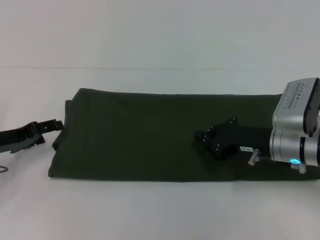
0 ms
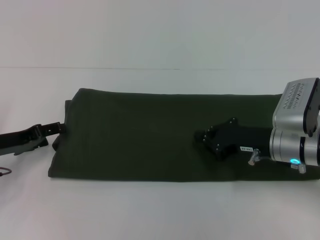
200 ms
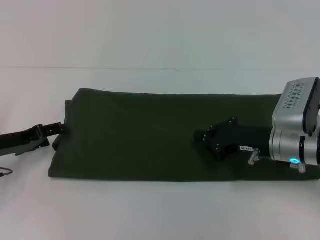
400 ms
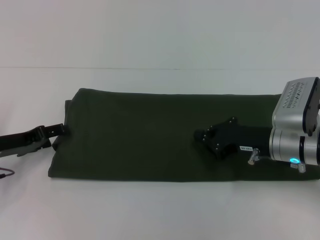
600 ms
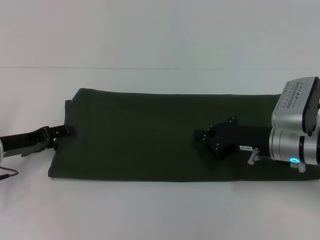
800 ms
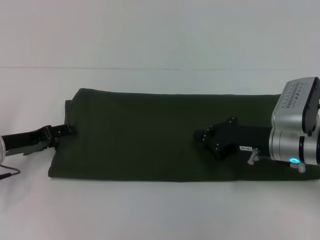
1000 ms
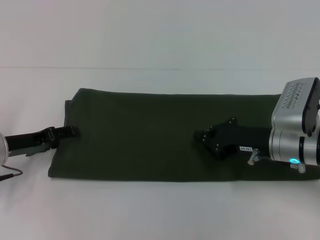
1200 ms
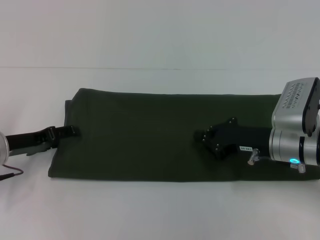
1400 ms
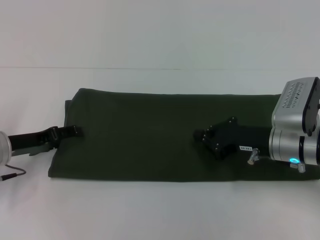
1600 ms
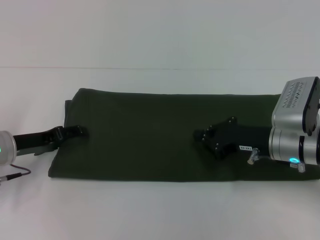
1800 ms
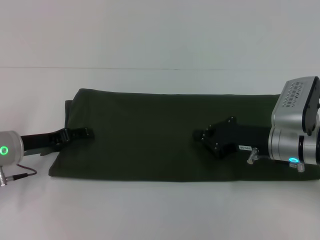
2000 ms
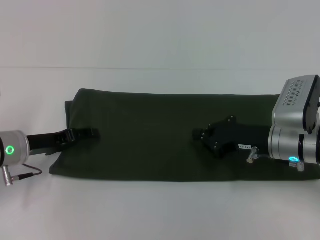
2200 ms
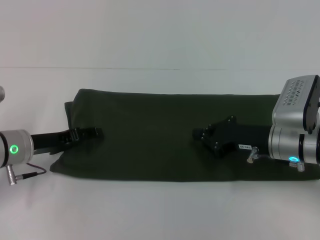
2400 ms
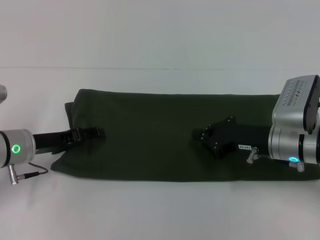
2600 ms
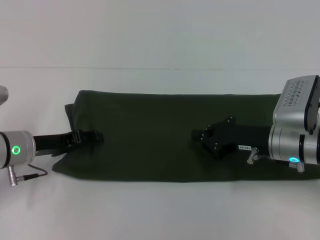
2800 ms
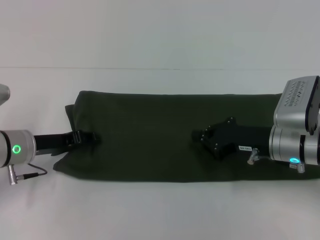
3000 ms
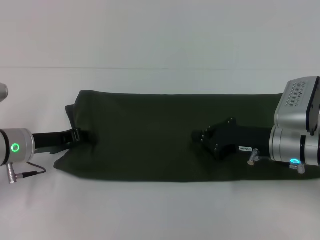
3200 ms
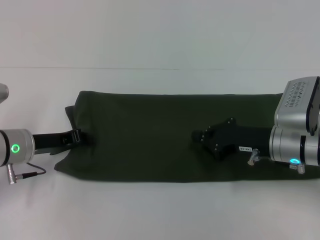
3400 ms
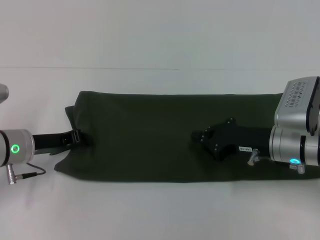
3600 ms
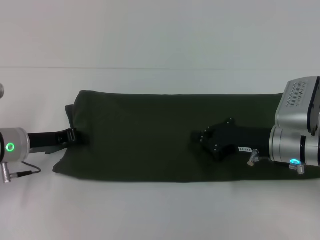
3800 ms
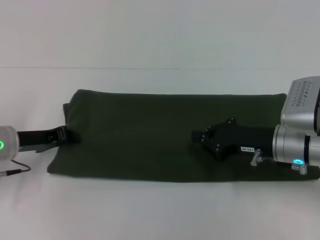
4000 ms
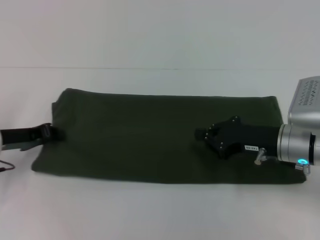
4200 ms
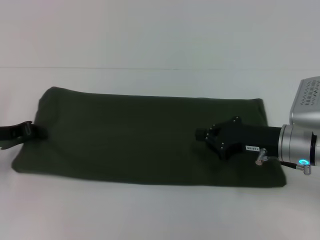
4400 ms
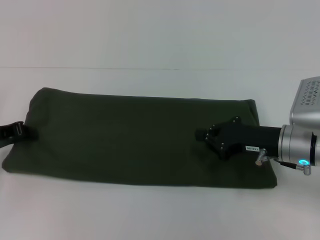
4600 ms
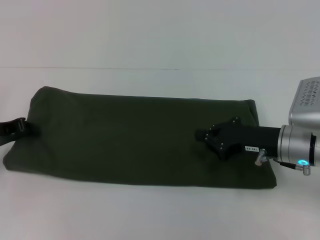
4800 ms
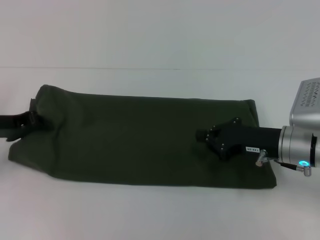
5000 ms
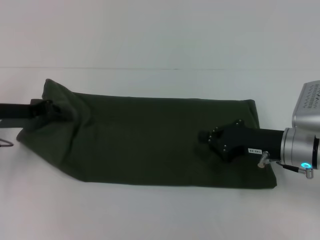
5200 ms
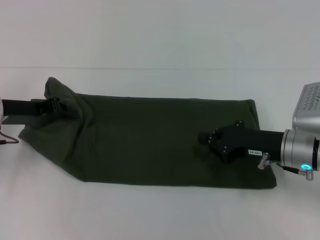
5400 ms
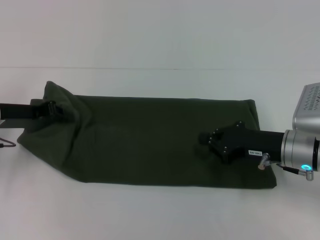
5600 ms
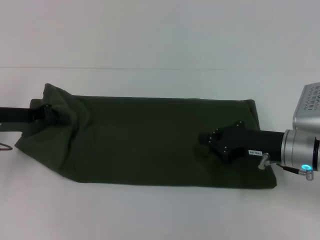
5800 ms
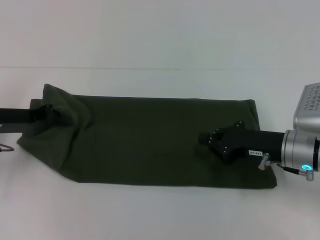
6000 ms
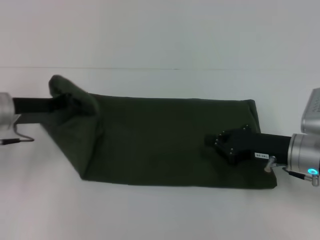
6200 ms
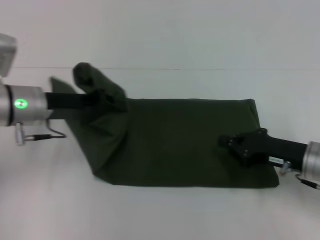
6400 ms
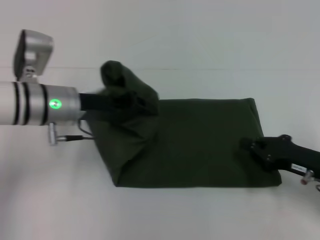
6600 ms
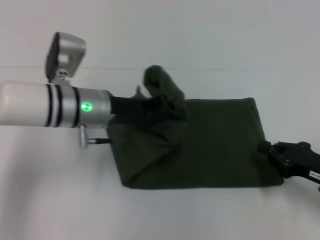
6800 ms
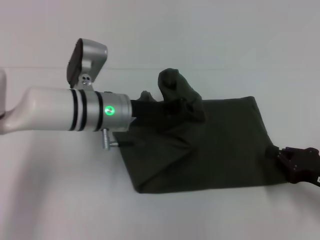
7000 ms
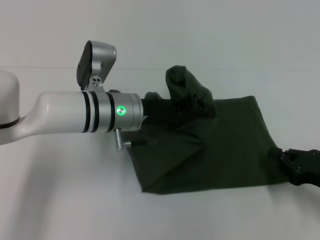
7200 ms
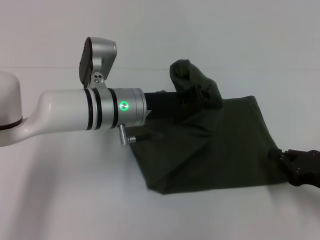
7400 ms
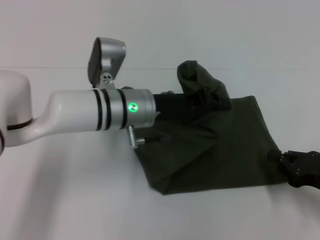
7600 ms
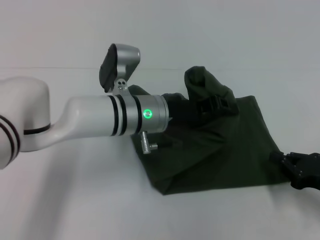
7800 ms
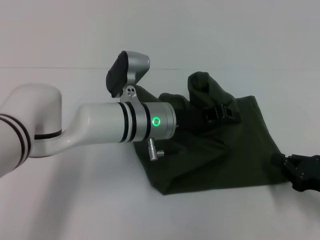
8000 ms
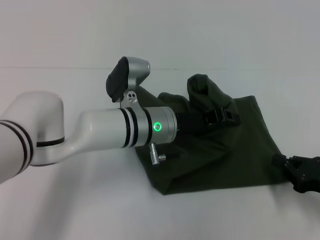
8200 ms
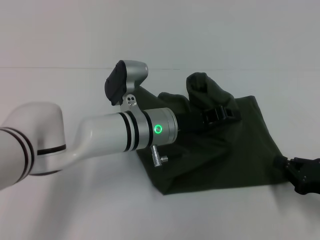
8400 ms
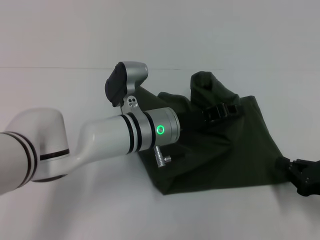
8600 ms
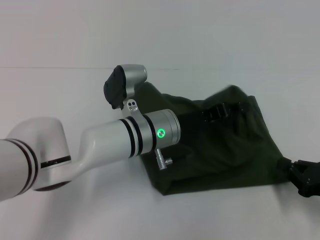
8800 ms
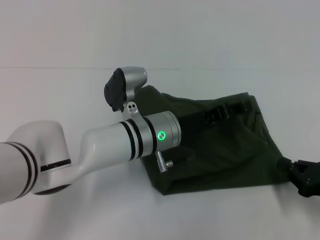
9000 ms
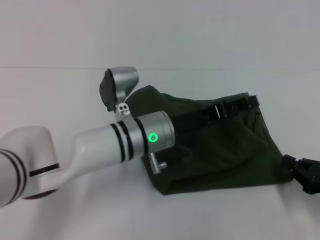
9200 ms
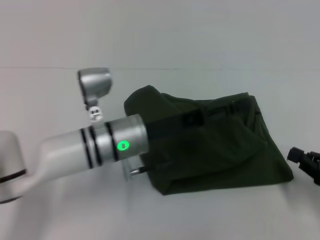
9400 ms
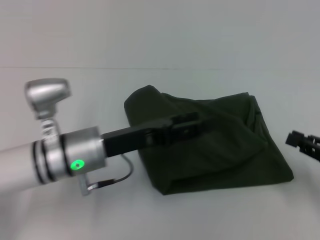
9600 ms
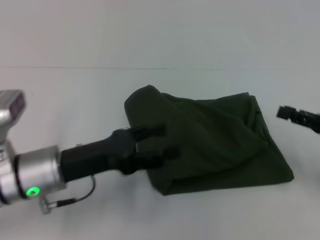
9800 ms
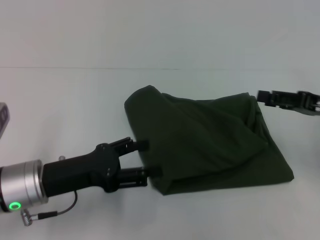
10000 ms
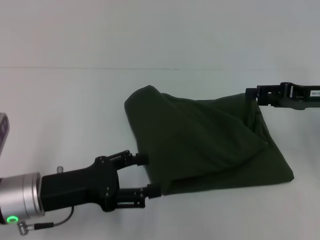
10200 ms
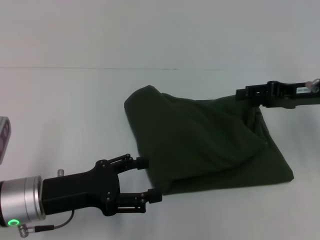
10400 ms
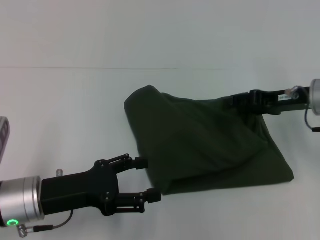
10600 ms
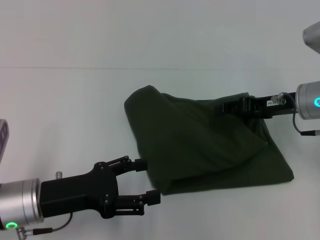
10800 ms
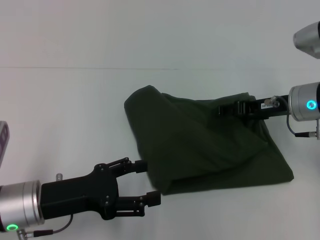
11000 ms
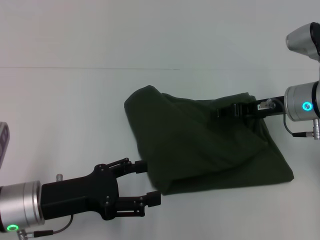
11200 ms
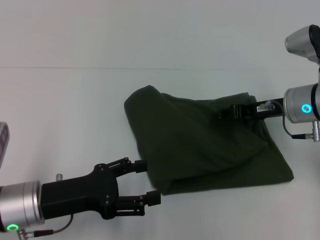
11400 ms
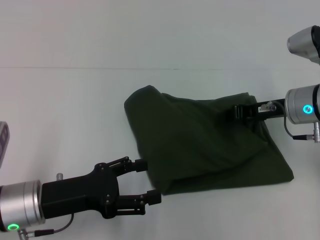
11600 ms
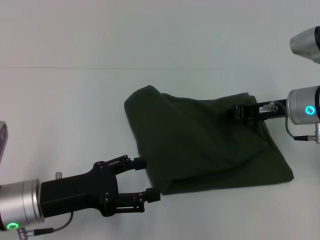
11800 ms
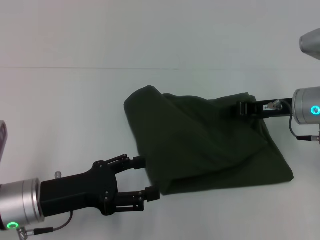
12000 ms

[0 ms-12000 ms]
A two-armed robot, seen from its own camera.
0 ms to 1600 ms: The grippers move only a little.
1600 ms to 3000 ms: The grippers move only a little.
3000 ms to 4400 ms: The left gripper moves to the left, approximately 5 cm, and closes up.
6000 ms to 7600 ms: The right gripper is displaced to the right and backward by some 10 cm. The left gripper moves to the right, some 20 cm.
7600 ms to 9000 ms: The left gripper ends up roughly 5 cm from where it was, and opens.
9000 ms to 10400 ms: The left gripper moves to the left and backward, some 20 cm, and opens. Meanwhile the right gripper travels forward and upward by roughly 20 cm, and opens up.
10400 ms to 12000 ms: The right gripper shifts by roughly 5 cm, and closes its fingers.

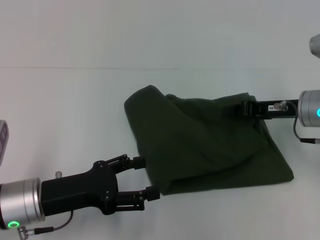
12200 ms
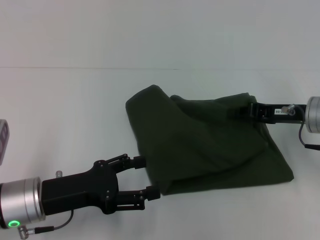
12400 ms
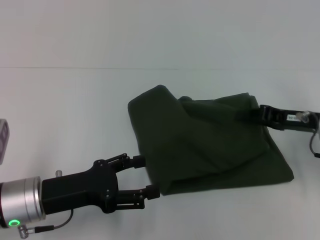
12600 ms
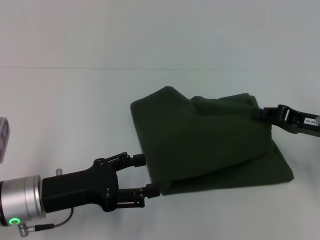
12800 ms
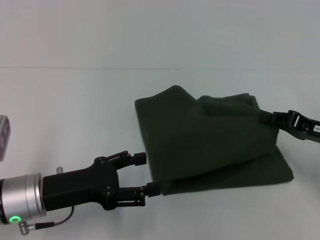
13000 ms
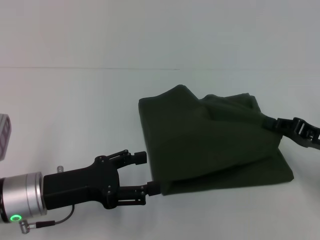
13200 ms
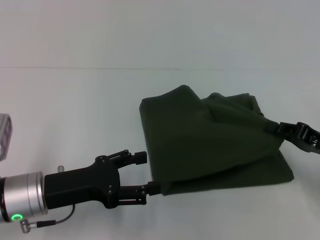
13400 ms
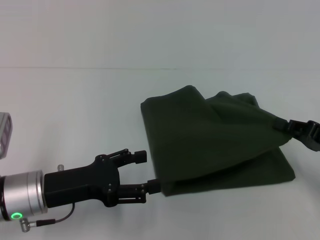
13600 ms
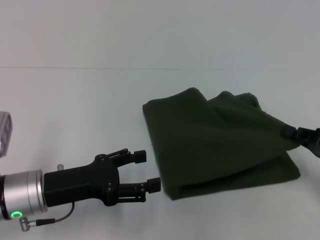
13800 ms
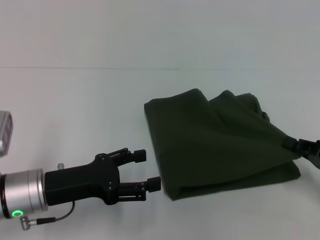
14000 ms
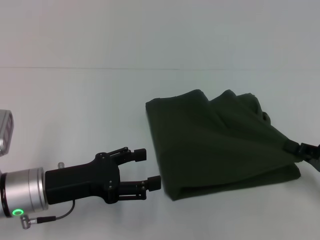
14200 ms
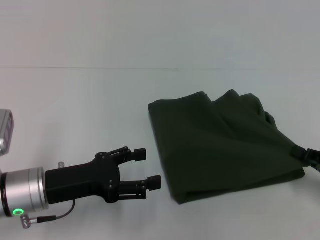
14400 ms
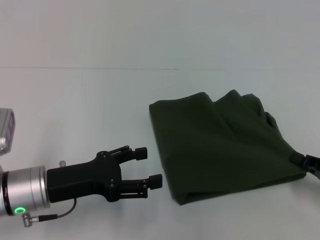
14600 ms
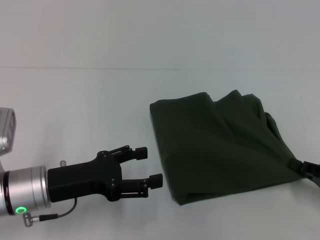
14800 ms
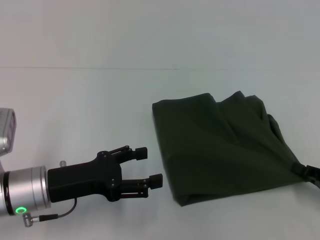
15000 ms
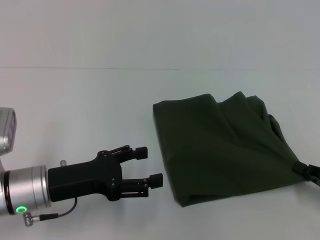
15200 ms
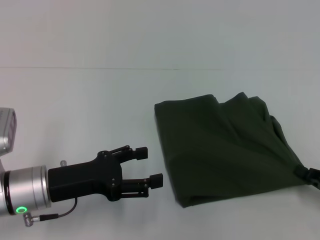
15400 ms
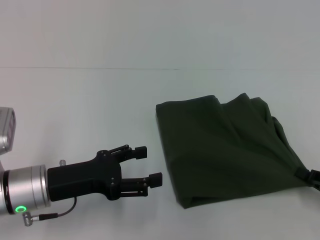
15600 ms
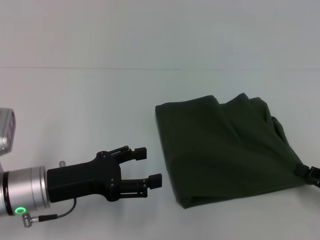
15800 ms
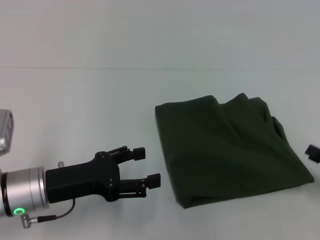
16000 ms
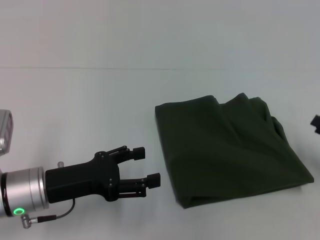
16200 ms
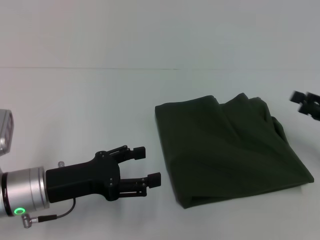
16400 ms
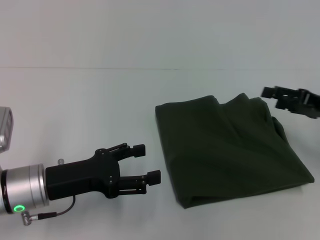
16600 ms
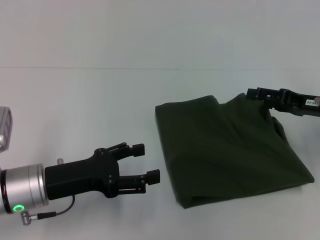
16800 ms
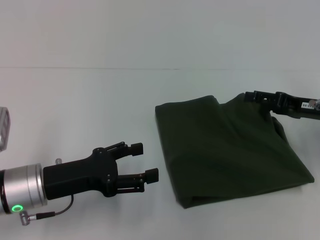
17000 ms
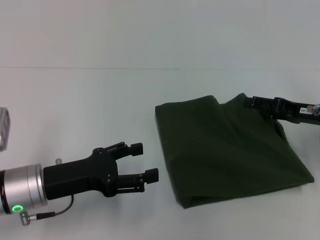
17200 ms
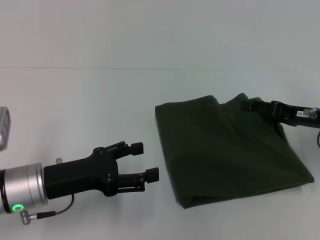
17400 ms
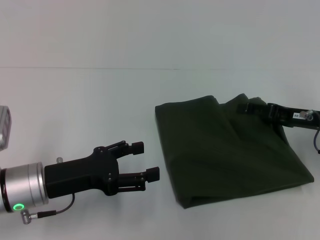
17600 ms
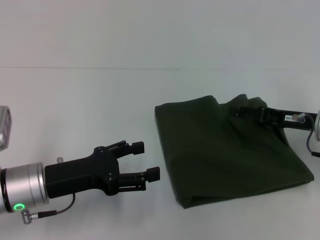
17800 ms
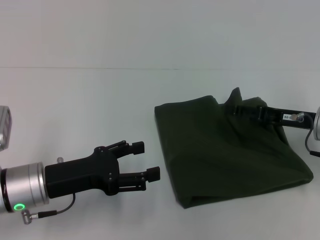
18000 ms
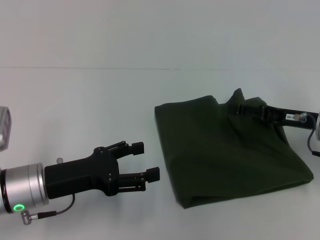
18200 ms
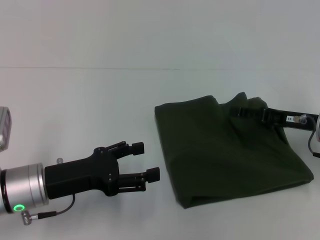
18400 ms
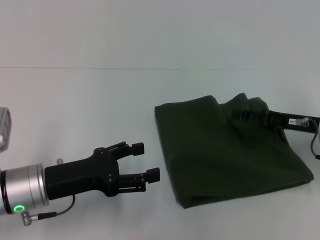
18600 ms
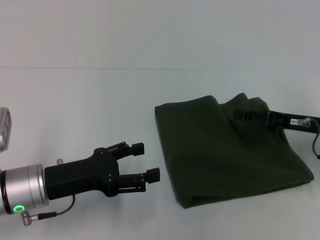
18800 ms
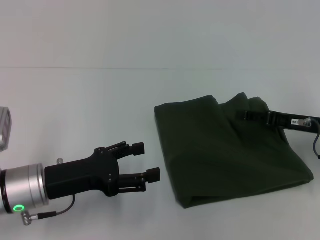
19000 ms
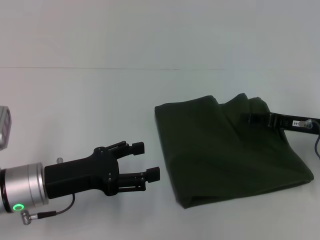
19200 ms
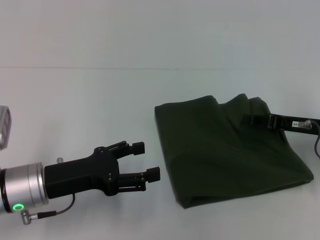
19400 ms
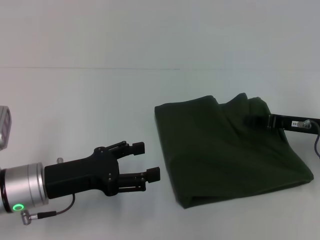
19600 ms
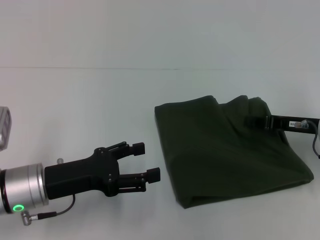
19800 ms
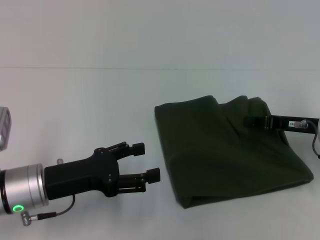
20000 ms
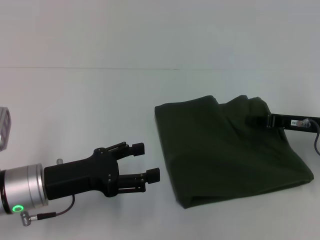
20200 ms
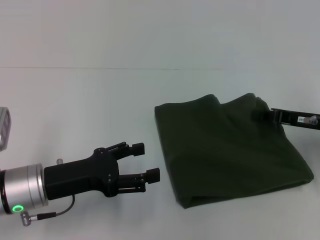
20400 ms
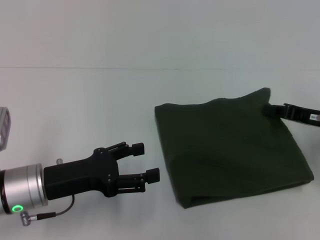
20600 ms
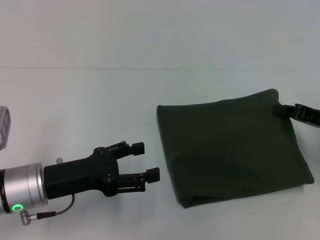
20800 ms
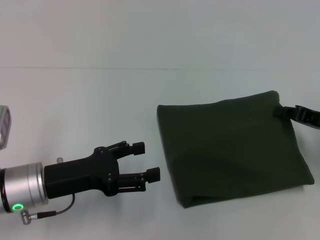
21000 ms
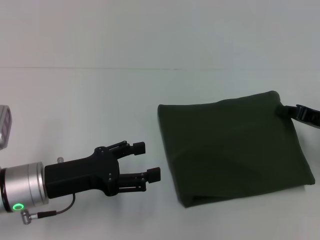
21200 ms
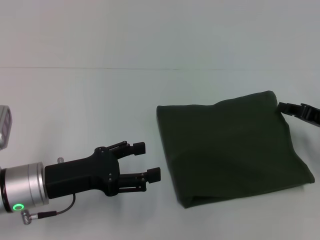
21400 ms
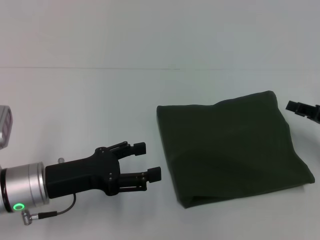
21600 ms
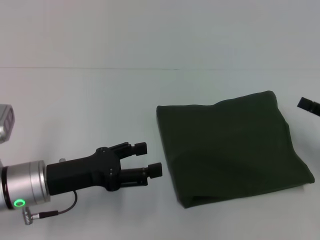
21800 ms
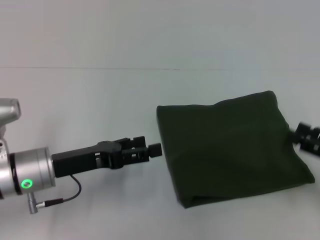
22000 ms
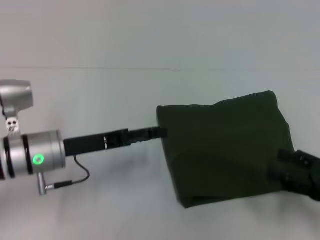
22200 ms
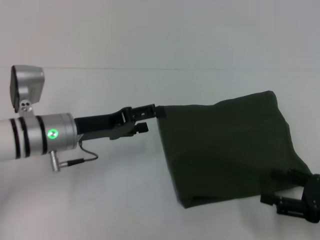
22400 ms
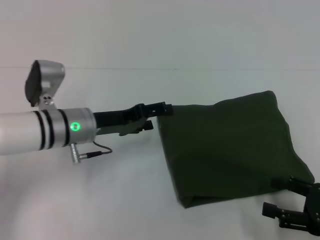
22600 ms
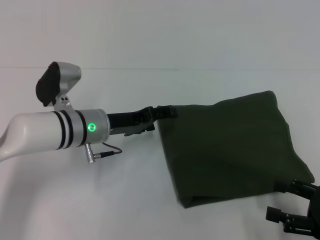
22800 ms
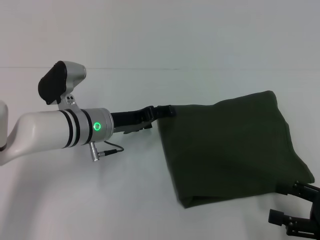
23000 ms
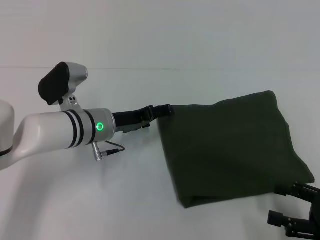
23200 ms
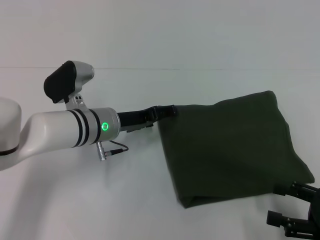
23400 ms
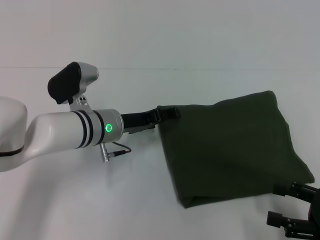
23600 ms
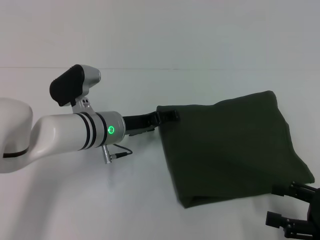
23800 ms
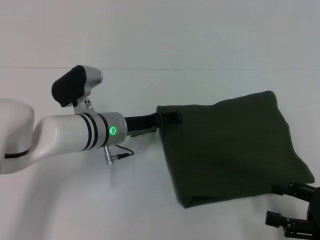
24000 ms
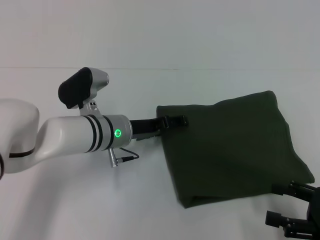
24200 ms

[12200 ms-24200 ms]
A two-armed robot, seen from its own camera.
12200 ms to 13800 ms: The right gripper moves backward and to the right, roughly 15 cm.
13800 ms to 15200 ms: The right gripper ends up some 5 cm from where it was.
15200 ms to 16600 ms: The right gripper travels forward and upward by about 15 cm, and opens its fingers.
16600 ms to 18200 ms: The right gripper shifts by some 5 cm.
18200 ms to 19800 ms: The right gripper closes its fingers.
19800 ms to 21200 ms: The grippers make only small movements.
21200 ms to 22600 ms: The right gripper is displaced backward by some 15 cm, and opens up. Meanwhile the left gripper heads forward, covering roughly 10 cm.
22600 ms to 24200 ms: The left gripper goes some 5 cm to the right.
